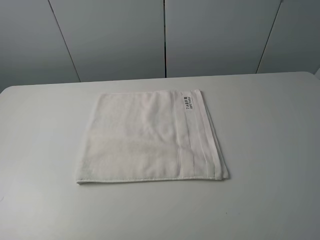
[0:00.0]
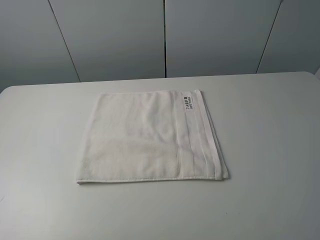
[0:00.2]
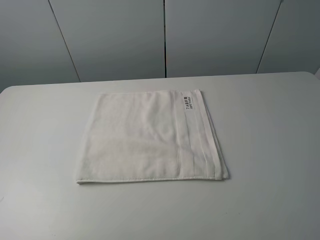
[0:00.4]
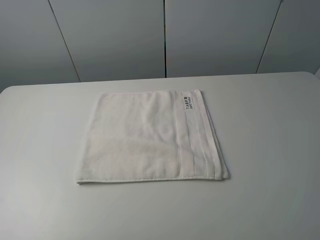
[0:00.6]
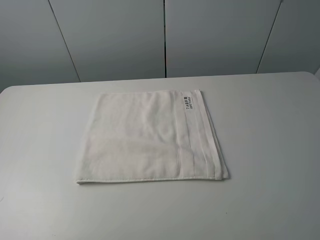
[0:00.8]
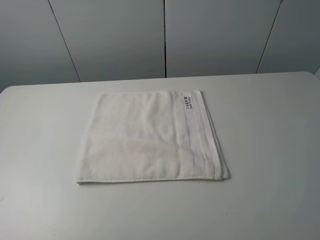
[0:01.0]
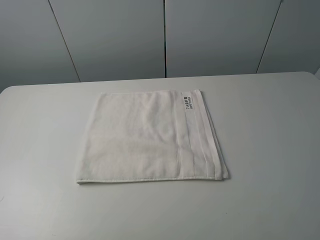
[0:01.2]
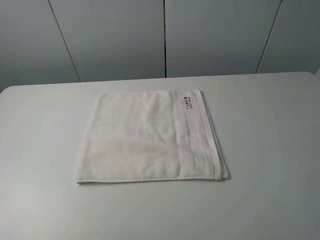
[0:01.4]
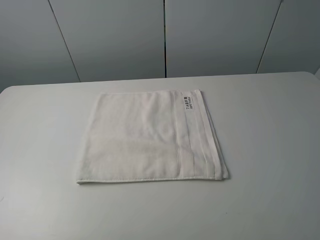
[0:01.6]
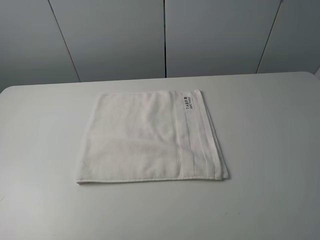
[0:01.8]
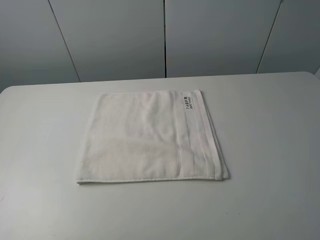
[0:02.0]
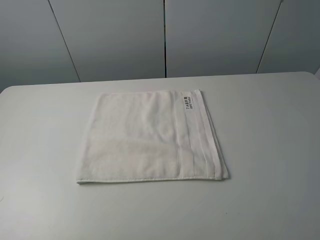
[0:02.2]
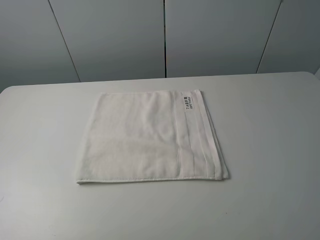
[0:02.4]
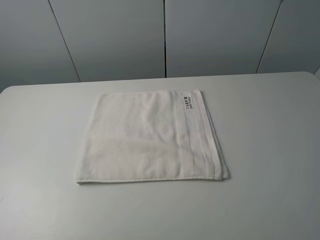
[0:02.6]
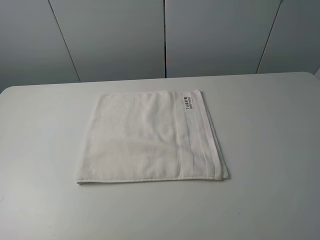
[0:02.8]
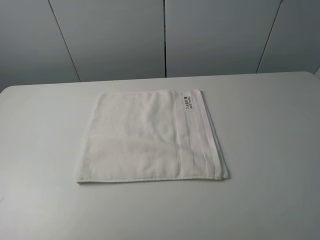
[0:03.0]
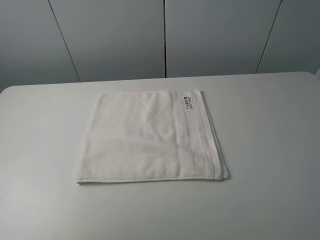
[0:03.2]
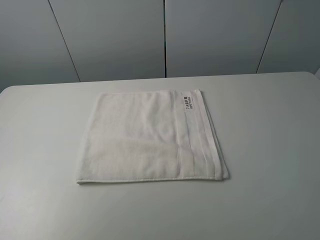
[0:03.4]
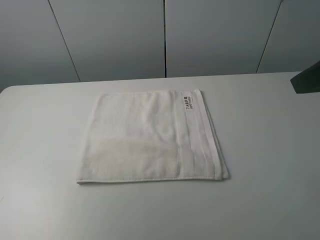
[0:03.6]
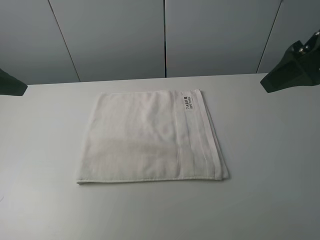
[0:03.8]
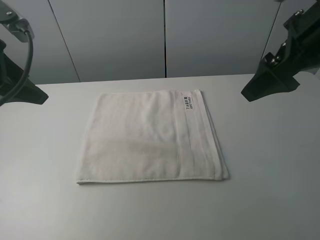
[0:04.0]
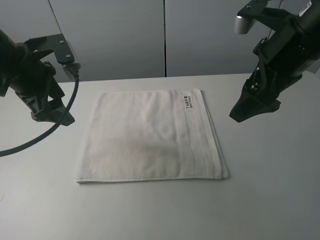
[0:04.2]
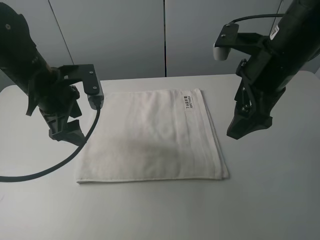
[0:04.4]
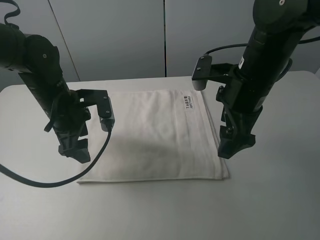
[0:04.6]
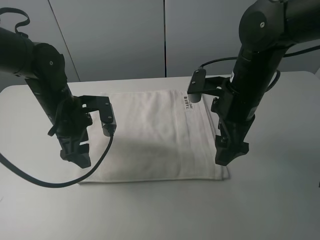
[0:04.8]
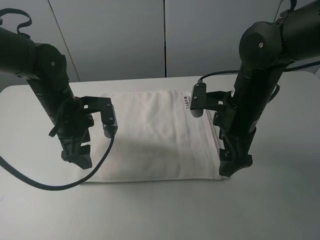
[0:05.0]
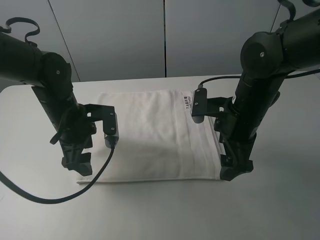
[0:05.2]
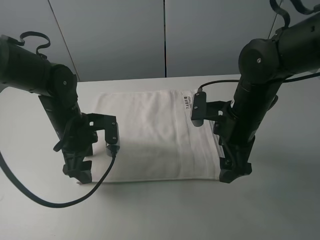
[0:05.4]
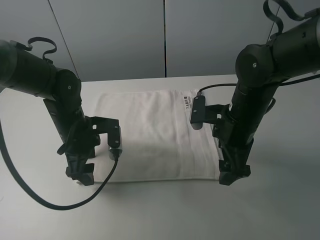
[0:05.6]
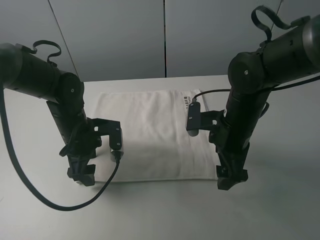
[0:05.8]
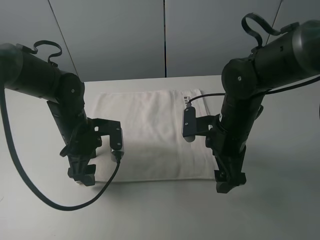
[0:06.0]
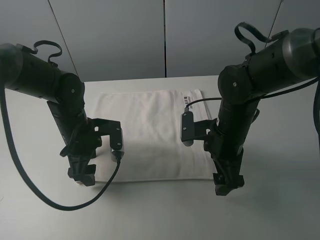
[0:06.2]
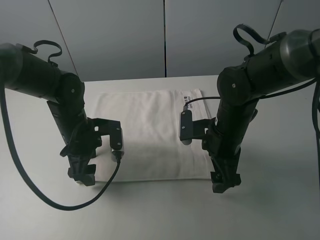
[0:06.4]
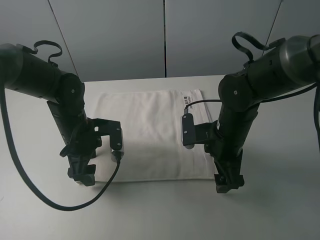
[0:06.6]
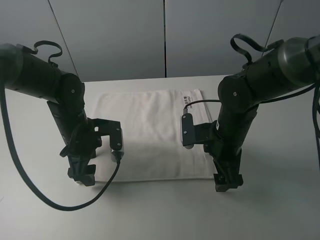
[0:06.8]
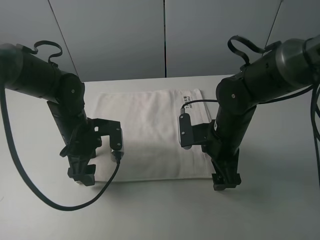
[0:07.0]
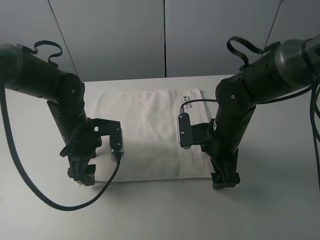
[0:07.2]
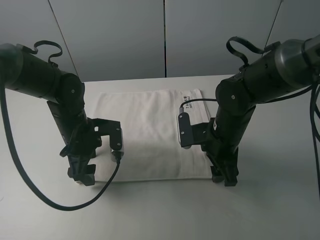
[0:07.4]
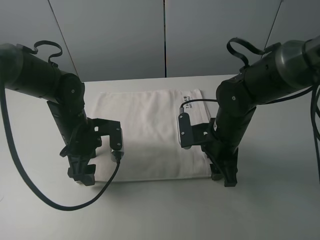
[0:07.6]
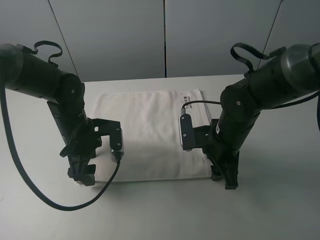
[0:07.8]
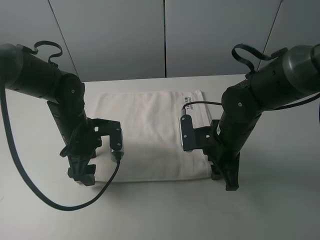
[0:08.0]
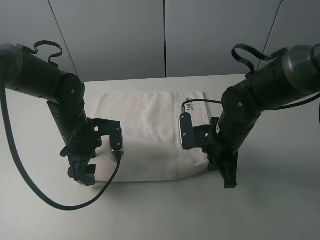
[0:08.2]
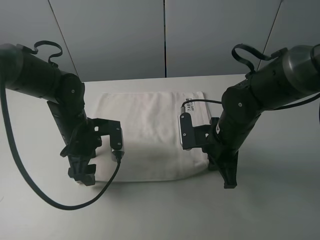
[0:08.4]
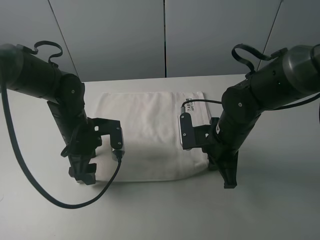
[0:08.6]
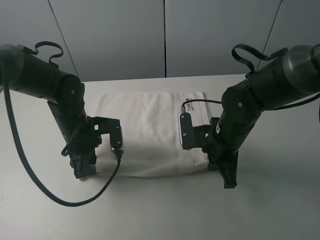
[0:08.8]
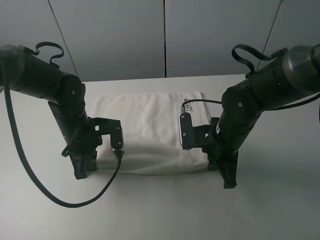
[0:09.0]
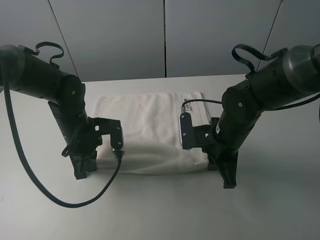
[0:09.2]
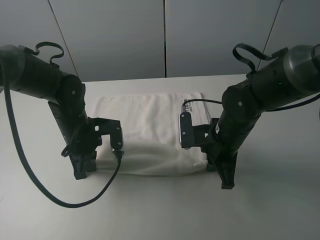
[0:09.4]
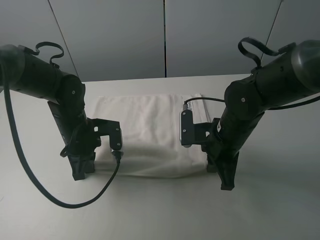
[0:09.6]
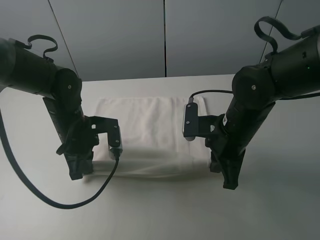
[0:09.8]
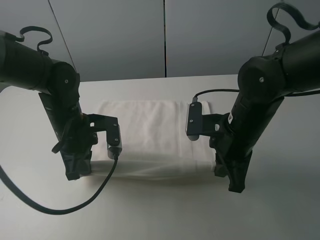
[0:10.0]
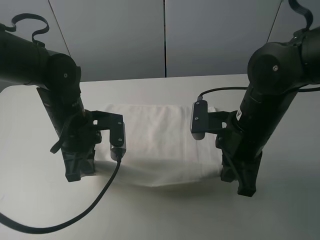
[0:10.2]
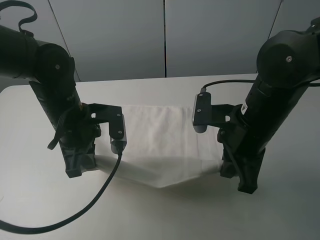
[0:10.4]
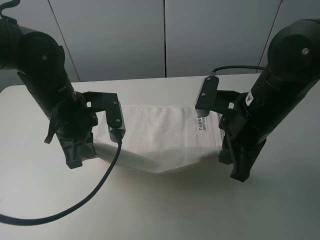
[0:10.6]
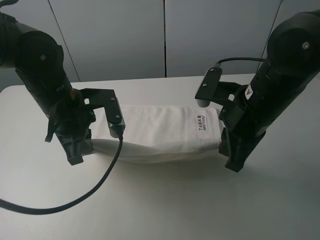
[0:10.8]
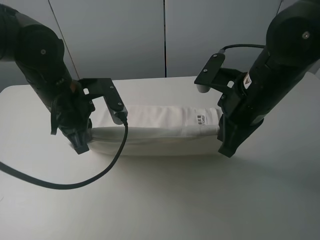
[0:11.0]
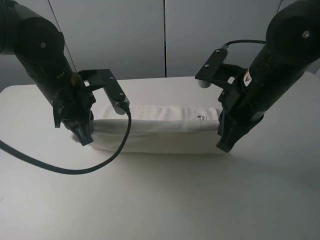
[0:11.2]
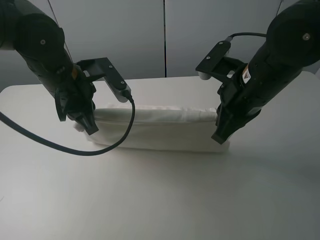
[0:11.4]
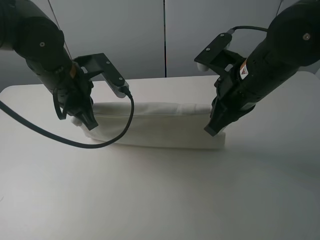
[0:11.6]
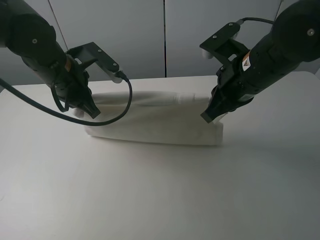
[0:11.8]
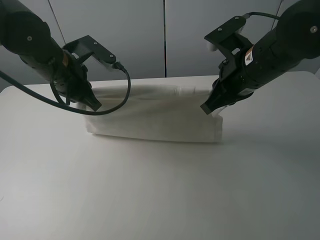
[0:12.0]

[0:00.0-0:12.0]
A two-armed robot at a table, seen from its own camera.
Task of the whole recording: fold the towels on the table.
Step, 0.0 to 8.4 s: Grasp the white towel with the right gripper.
Step, 8.6 to 9.2 s: Grasp the white towel with the left gripper.
0.0 to 1.6 s: Neither gripper changes place.
3.0 to 4.4 s: The left gripper goes roughly 30 cm forward, to the right and downward. The right gripper heads forward and to the left, covering about 25 cm.
4.4 to 6.0 s: Both grippers travel together downward, approximately 10 cm.
6.0 to 7.6 s: The right gripper closes up.
7.6 to 9.0 s: The right gripper closes; the left gripper closes.
9.0 to 10.4 s: The two grippers go about 10 cm upward.
10.4 to 12.0 s: The right gripper heads forward, covering about 5 cm; the left gripper shifts approximately 10 cm forward and upward.

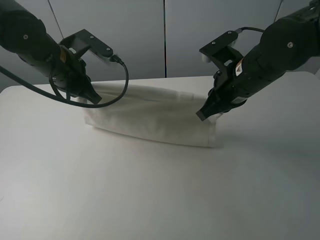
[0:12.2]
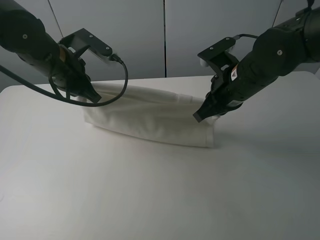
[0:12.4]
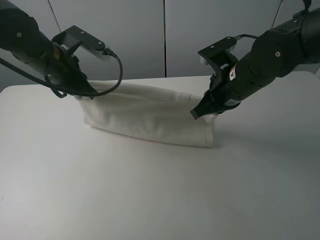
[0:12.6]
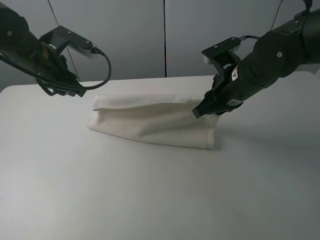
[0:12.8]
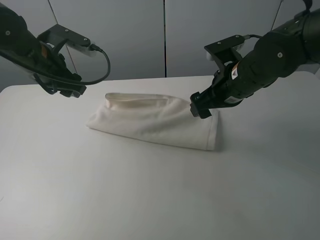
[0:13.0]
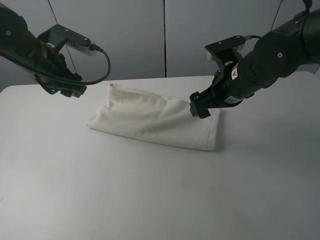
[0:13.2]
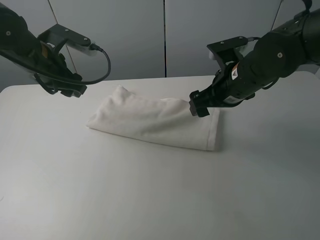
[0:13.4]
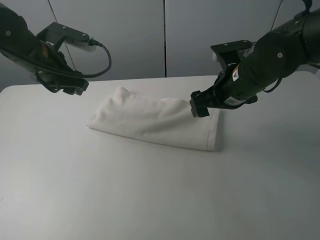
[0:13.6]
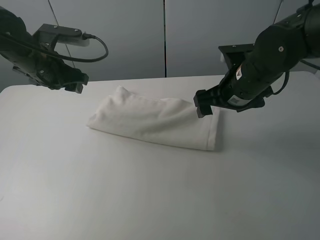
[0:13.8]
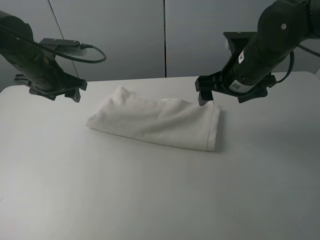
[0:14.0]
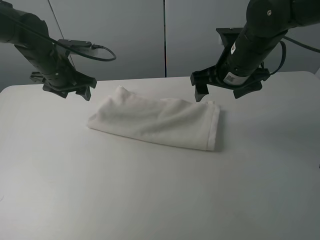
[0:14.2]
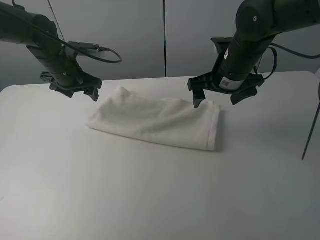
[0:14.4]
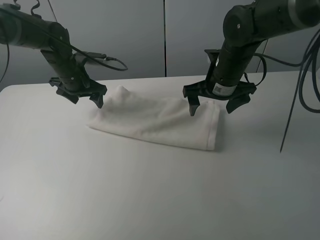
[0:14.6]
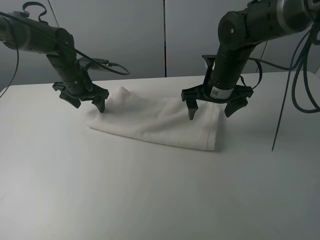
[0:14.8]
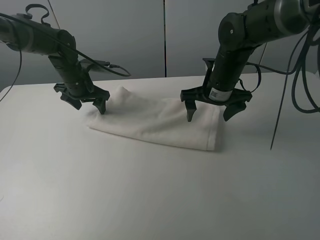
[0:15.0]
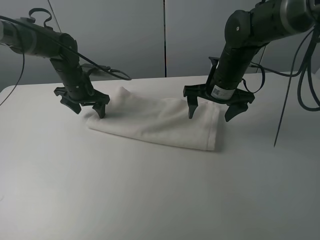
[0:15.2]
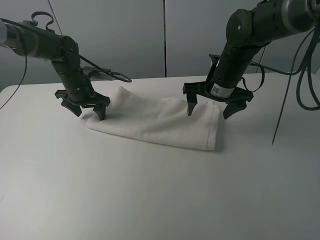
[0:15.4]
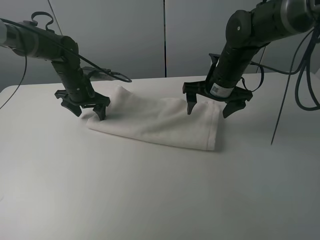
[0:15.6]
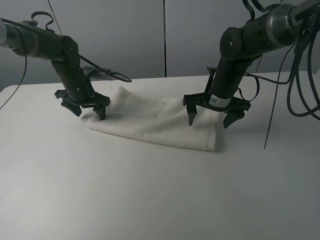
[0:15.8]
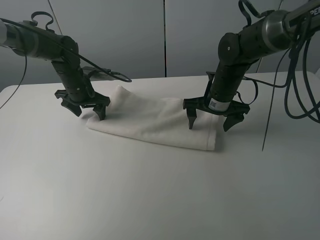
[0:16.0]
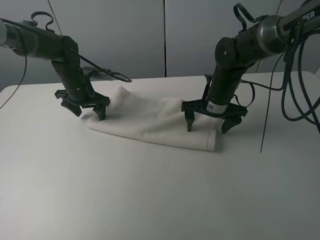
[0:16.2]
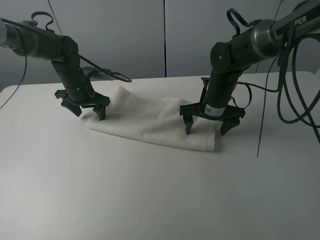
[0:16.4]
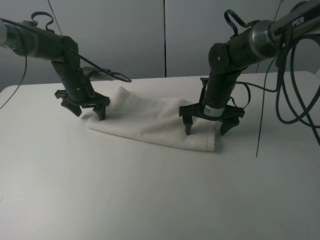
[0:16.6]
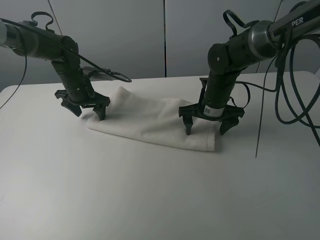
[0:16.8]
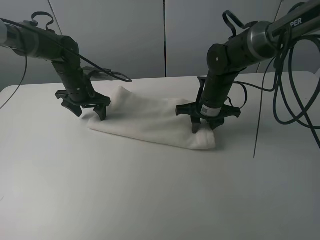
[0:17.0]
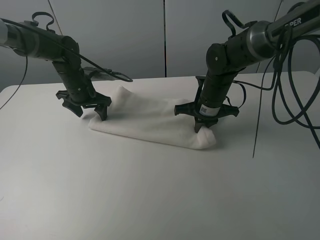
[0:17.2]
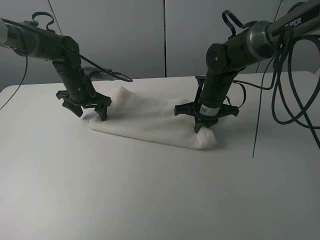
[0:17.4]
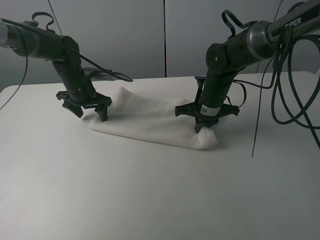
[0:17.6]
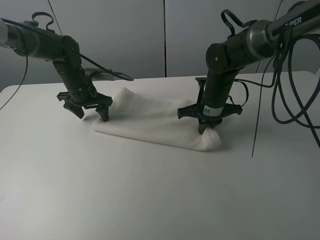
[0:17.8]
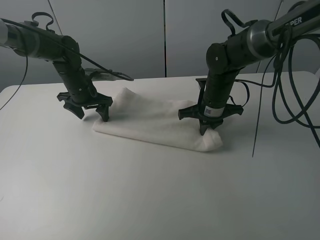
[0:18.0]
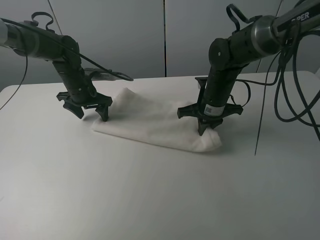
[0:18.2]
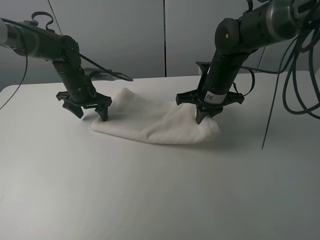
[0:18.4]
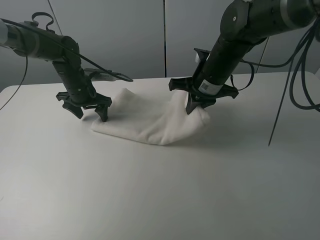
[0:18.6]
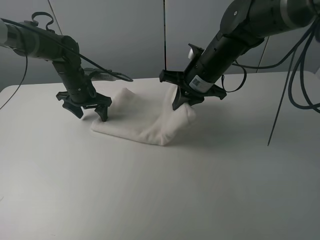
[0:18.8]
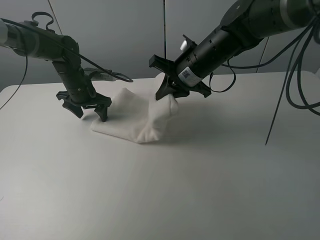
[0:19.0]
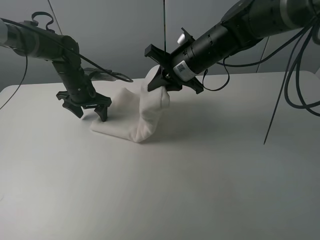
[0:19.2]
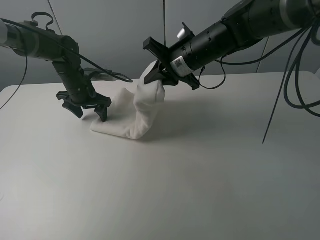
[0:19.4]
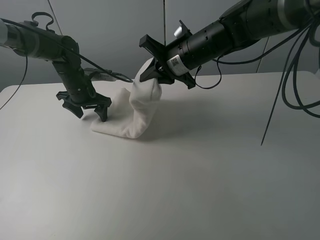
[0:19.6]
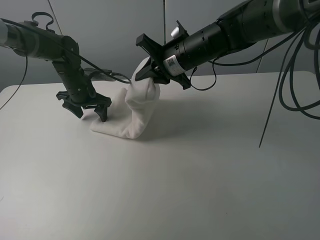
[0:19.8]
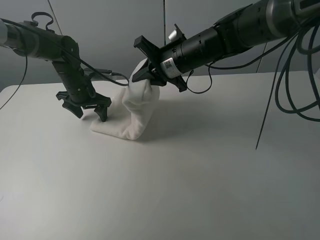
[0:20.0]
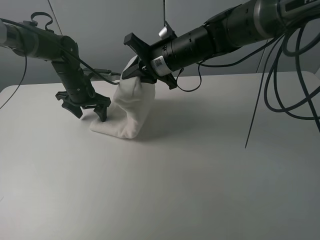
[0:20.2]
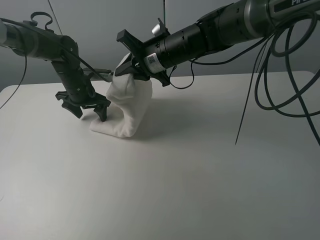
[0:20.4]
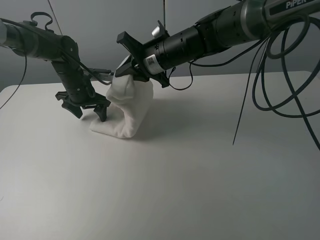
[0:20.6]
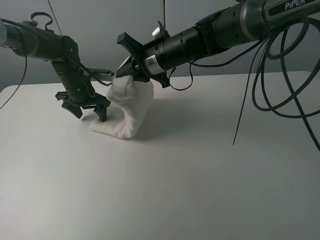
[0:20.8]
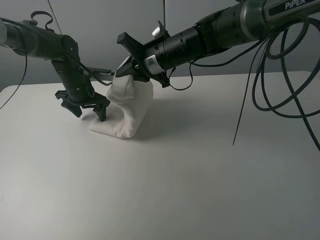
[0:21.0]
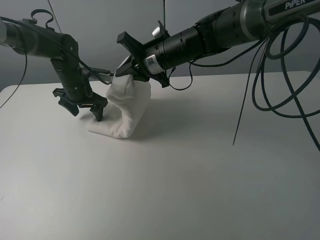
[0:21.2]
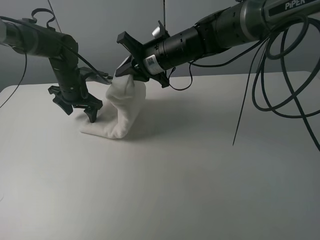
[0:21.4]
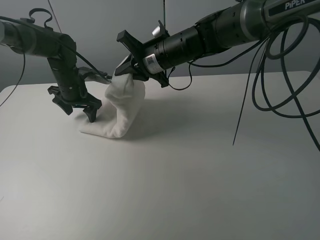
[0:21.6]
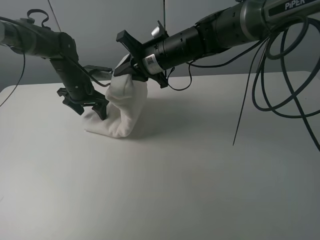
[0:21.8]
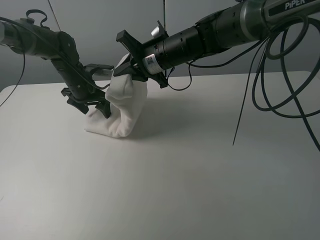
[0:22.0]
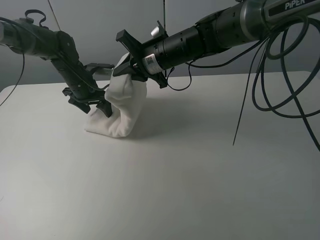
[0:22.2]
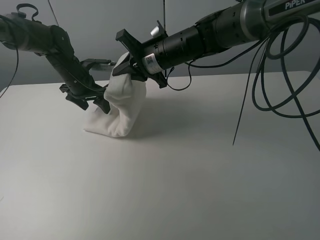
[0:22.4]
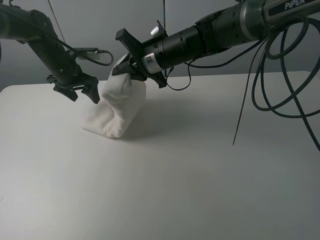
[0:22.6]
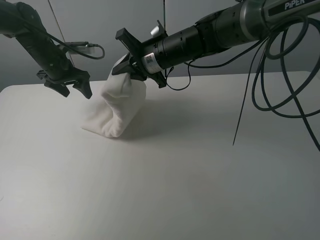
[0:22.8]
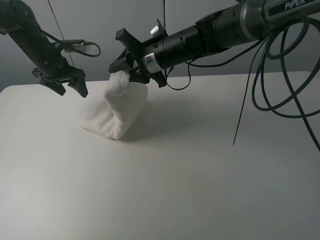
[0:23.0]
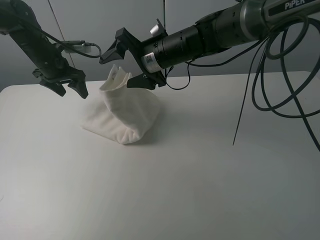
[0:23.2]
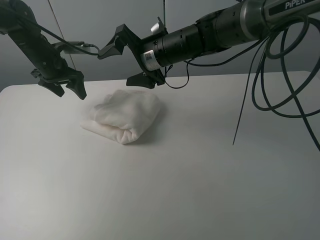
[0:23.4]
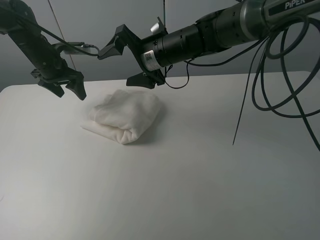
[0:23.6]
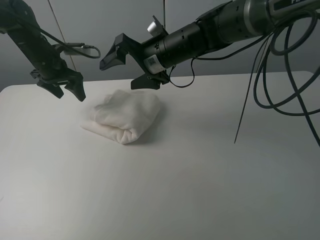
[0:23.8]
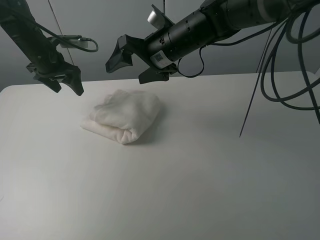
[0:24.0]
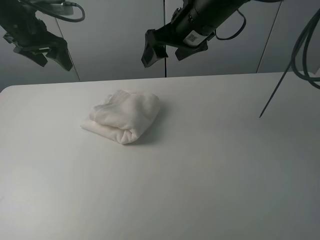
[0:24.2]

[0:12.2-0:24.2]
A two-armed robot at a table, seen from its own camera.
Task of the whole recording: fold the towels on the table.
Step, 13.8 to 15.2 s: Press on the white towel with the left gripper.
Step, 15.4 to 23.2 s: Fold the white towel from right to left with right gripper.
12.2 to 13.8 s: The right gripper opens up, while the left gripper ends up approximately 5 cm from where it was, and opens its fingers.
13.8 to 15.2 s: The right gripper heads forward, covering approximately 5 cm. Meanwhile the left gripper shifts approximately 15 cm downward and forward.
15.2 to 16.6 s: The right gripper moves downward, roughly 5 cm.
16.6 to 18.2 s: The right gripper closes its fingers.
18.2 to 19.8 s: The right gripper shifts roughly 10 cm upward and to the left.
19.8 to 21.2 s: There are only small adjustments of the grippers.
21.2 to 22.6 s: The left gripper shifts by about 5 cm.
22.6 to 24.2 s: The right gripper goes approximately 10 cm upward and to the right, and opens up, while the left gripper heads upward, covering roughly 10 cm.
